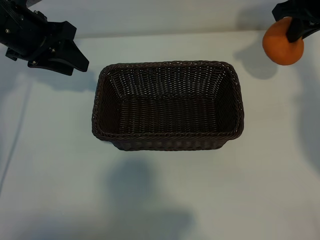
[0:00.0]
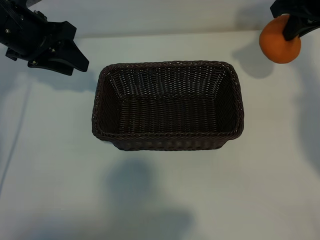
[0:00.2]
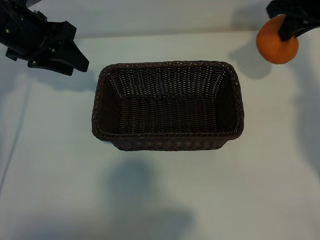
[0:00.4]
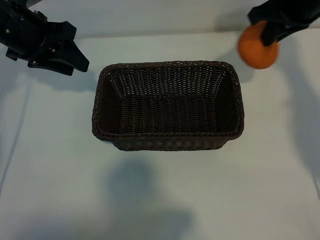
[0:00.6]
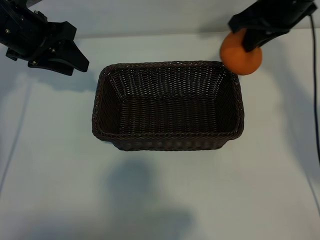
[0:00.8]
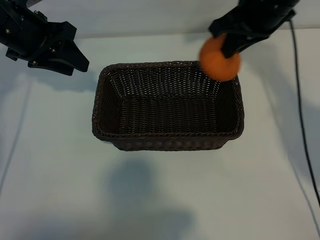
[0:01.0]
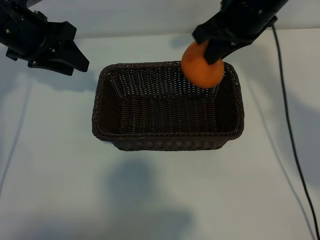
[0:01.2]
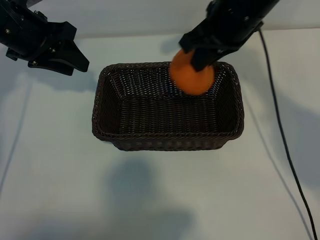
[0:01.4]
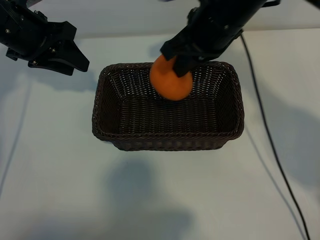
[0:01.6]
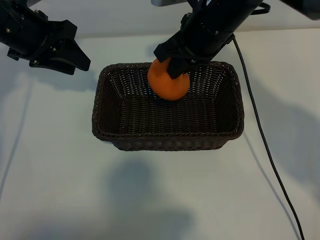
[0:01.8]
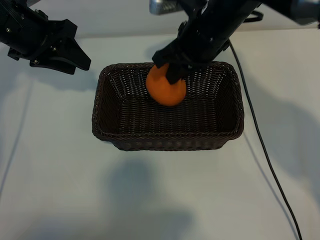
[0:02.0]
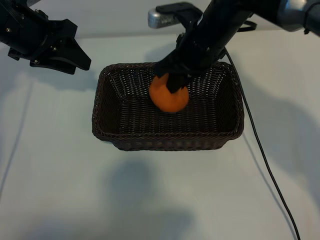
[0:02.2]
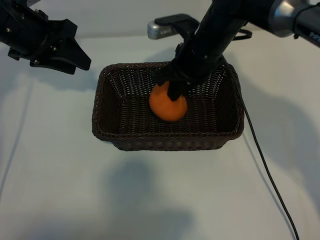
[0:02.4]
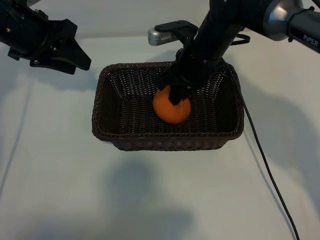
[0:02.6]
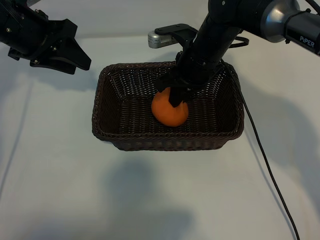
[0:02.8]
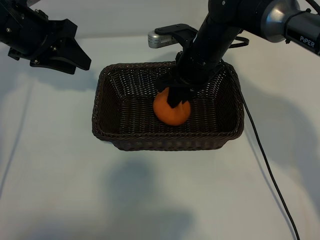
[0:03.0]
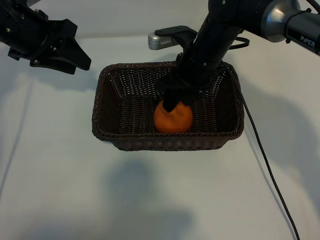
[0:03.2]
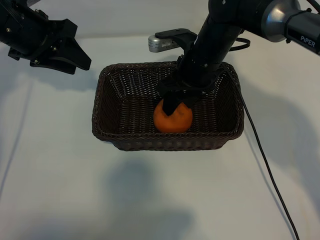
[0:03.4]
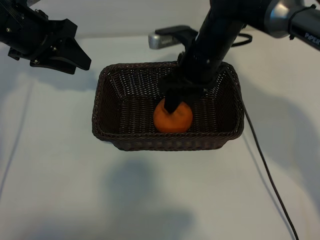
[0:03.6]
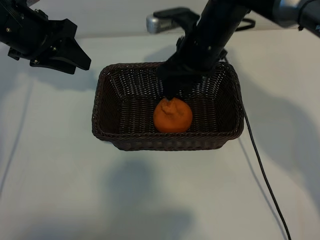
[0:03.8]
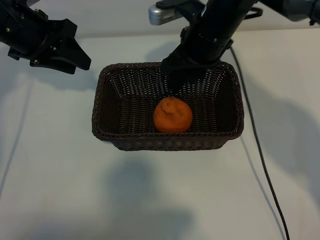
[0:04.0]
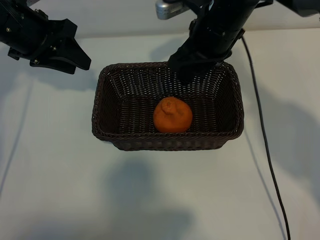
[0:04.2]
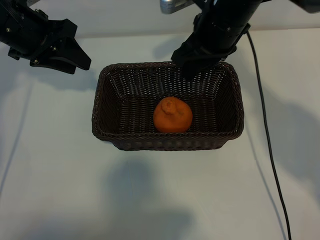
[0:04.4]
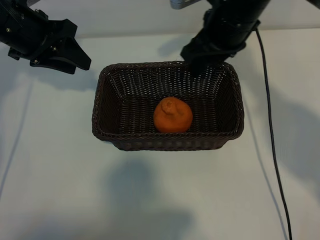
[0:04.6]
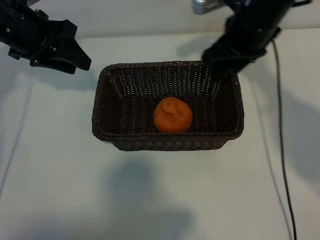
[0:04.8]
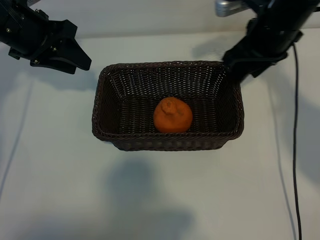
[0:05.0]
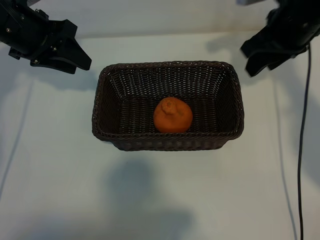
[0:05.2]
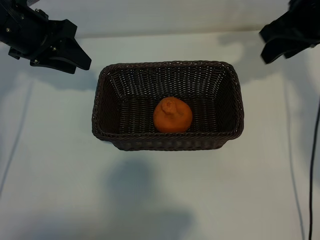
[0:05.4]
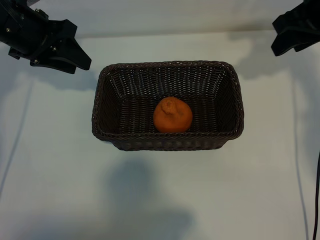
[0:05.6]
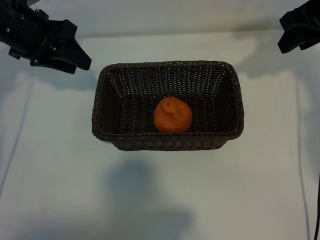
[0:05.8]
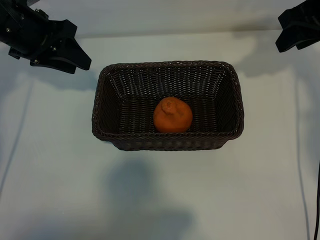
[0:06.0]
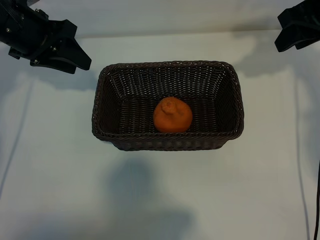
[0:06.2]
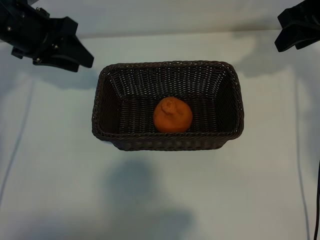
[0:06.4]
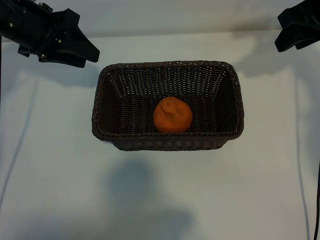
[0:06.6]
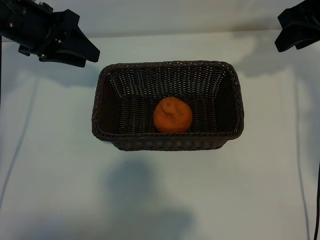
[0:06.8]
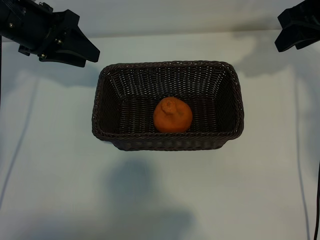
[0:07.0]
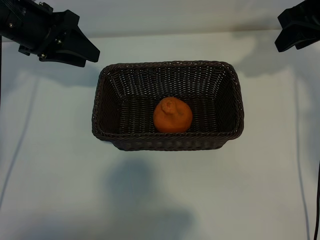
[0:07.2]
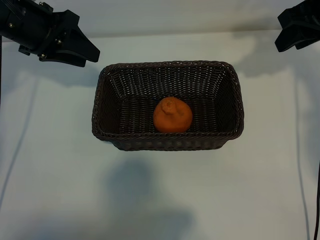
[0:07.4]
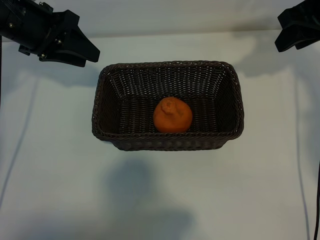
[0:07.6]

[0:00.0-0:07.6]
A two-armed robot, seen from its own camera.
Task of the whole recording: pick up the orange and put it into the basket.
Step, 0:00.0 to 0:03.2: Place the orange in the basket with right gripper.
